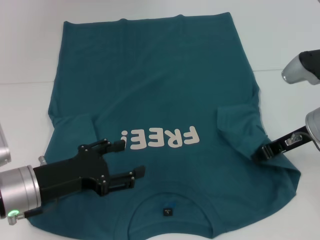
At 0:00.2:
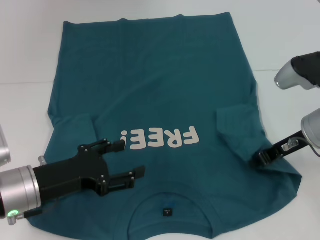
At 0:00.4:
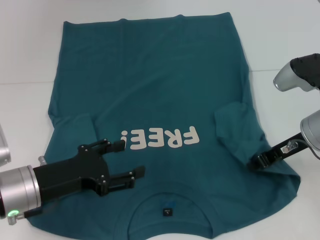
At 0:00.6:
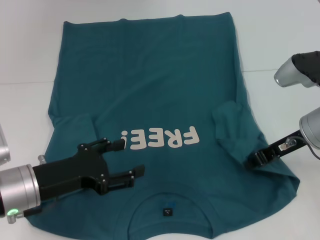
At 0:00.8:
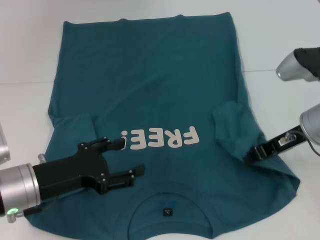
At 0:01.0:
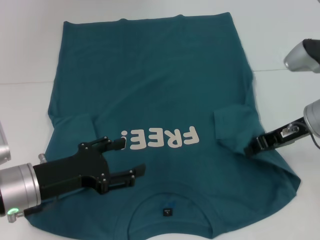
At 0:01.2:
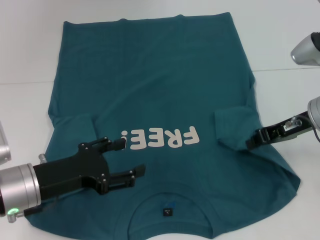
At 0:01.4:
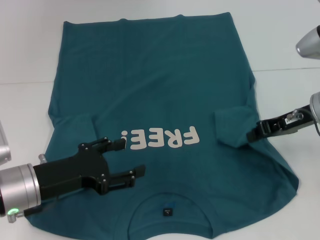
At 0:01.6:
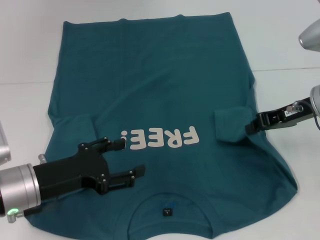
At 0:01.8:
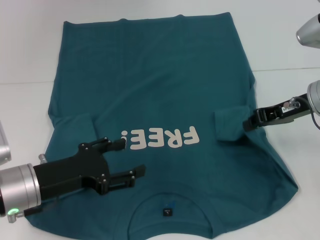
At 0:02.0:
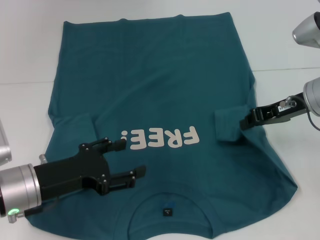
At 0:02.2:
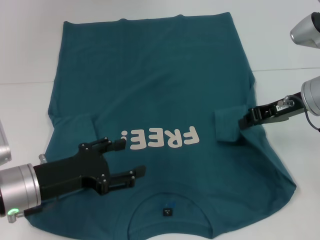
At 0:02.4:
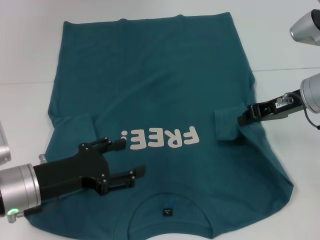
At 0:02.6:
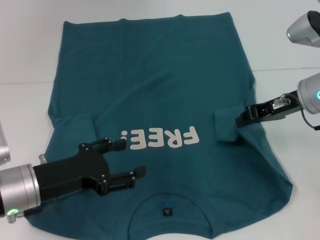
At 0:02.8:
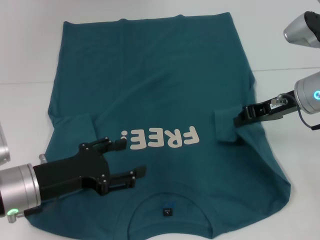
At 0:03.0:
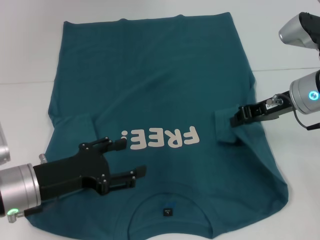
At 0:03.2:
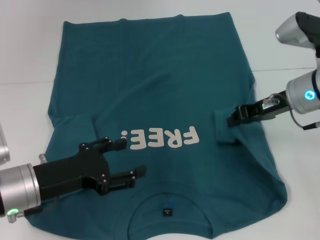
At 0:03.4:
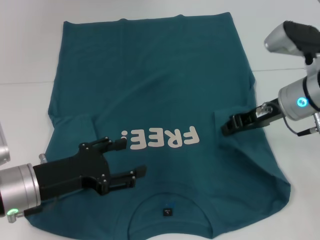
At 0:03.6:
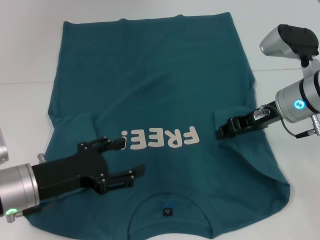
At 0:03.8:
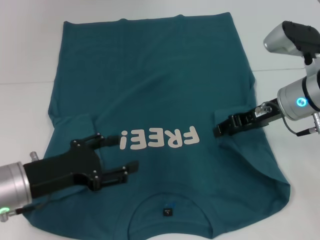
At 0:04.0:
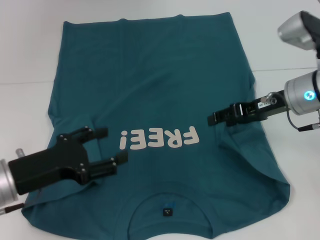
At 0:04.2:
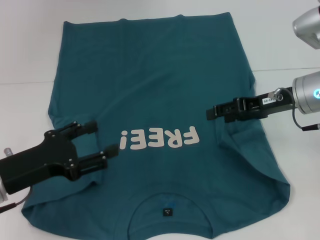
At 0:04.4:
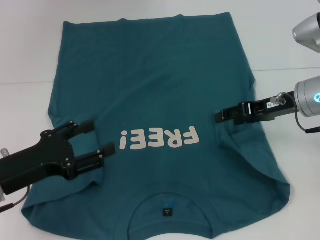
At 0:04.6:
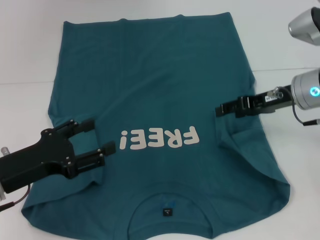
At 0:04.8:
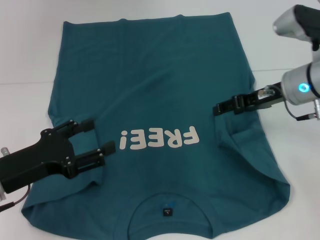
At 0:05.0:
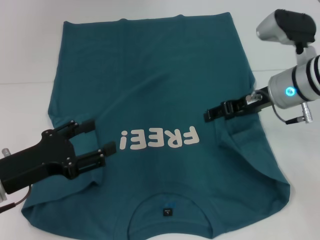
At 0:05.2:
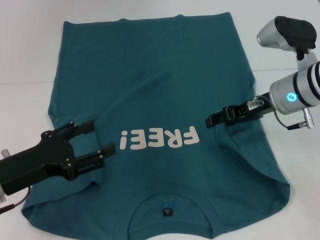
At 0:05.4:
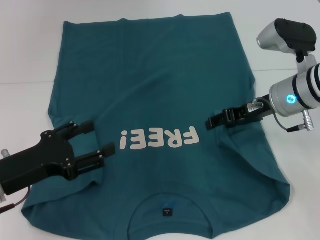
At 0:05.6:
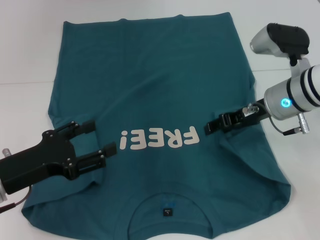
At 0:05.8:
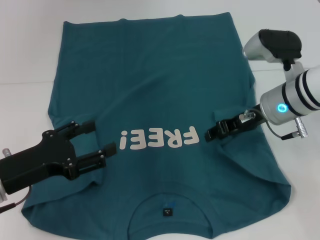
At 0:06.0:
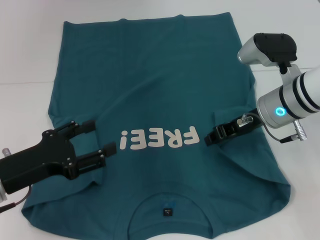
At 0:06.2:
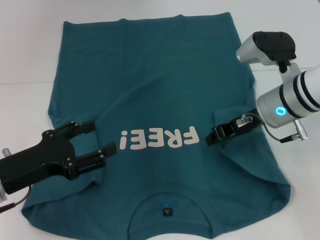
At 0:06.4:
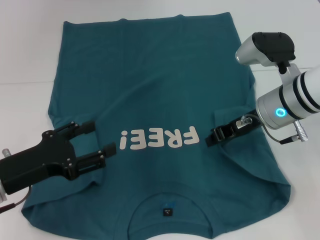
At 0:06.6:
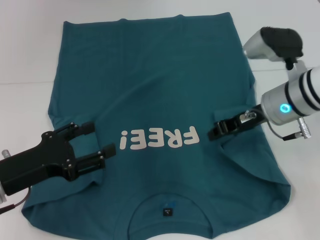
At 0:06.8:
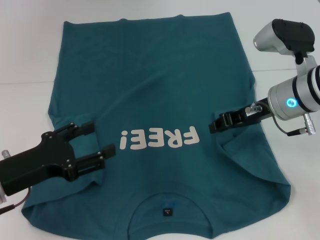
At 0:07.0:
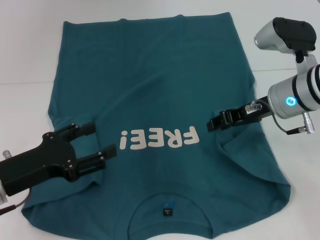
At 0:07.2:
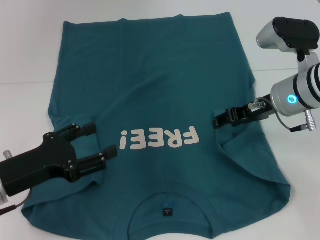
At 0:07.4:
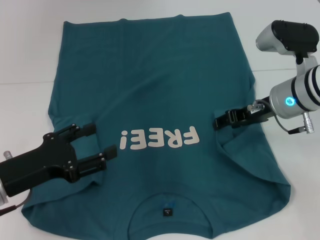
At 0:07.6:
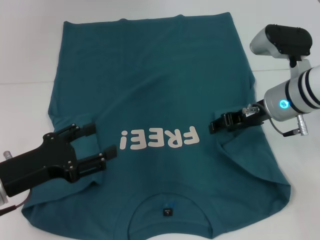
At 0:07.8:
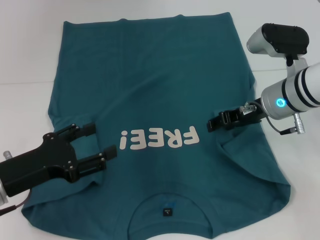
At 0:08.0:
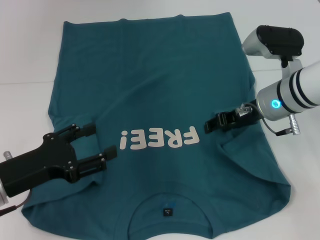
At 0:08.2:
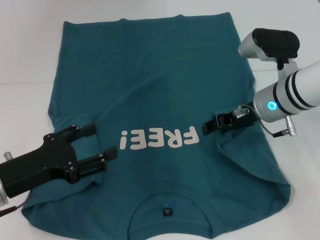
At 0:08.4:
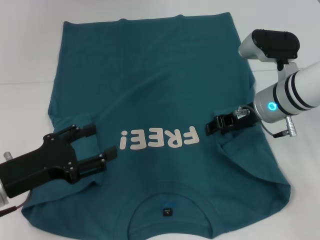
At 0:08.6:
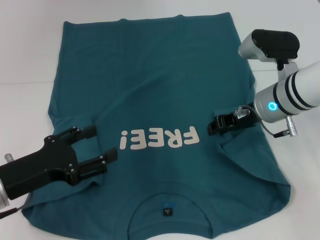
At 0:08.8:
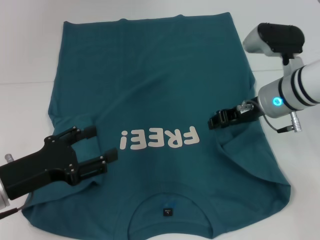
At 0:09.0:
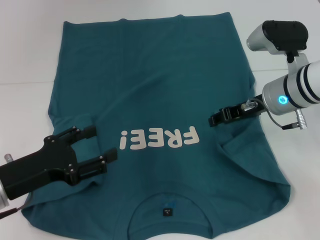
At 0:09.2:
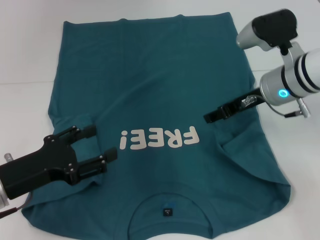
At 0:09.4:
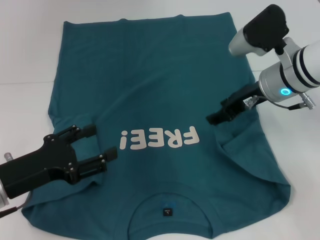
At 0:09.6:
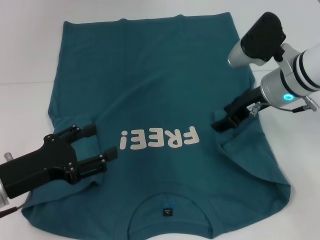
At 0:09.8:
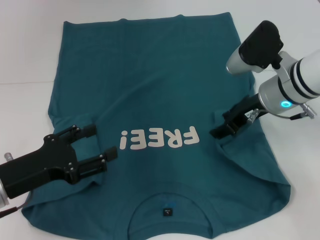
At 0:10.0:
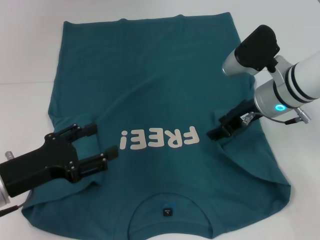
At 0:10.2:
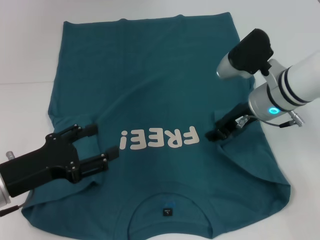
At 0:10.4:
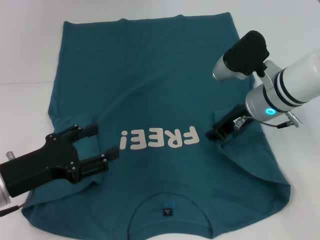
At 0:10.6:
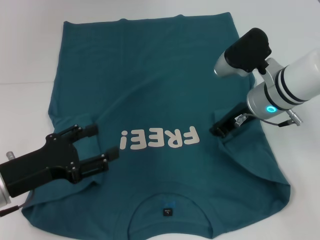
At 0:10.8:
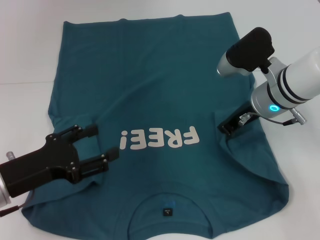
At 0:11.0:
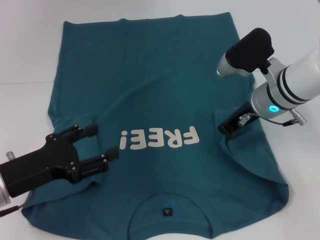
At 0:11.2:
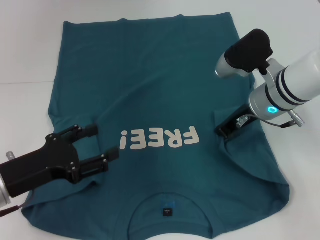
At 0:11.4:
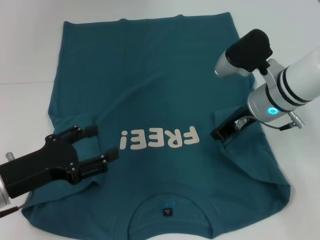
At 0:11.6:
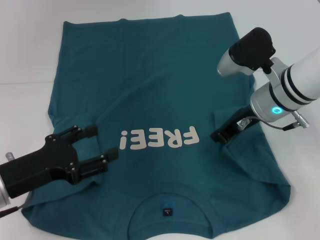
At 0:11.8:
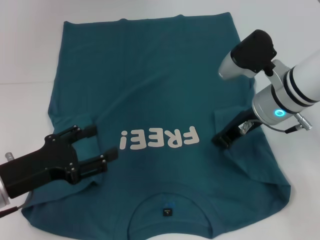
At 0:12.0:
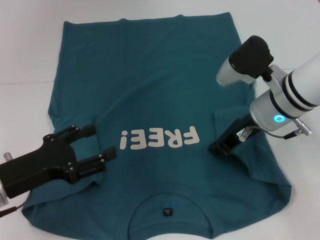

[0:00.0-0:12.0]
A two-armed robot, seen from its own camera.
0:00.0 to 0:03.0: The grippers stay close to where they were, moving slightly.
0:03.0 to 0:04.4: The right gripper opens up.
0:04.4 to 0:06.0: The right gripper is displaced to the left by about 5 cm, and closes its fingers.
0:06.0 to 0:07.6: The right gripper closes and opens again.
0:07.6 to 0:09.0: The grippers stay close to where they were, moving slightly.
0:10.4 to 0:12.0: The right gripper closes up.

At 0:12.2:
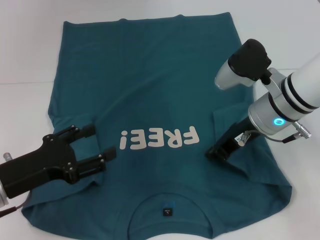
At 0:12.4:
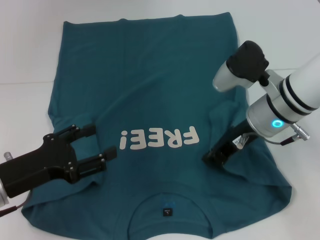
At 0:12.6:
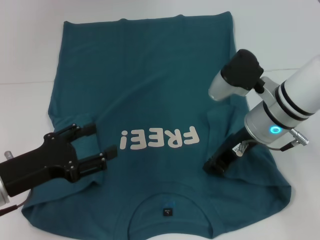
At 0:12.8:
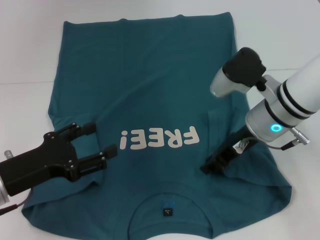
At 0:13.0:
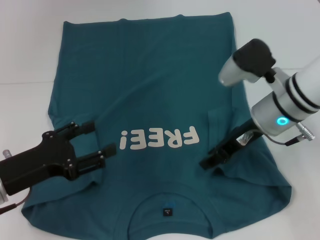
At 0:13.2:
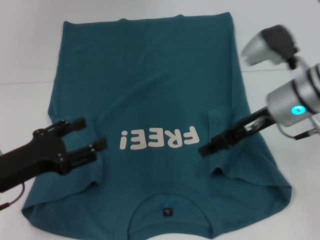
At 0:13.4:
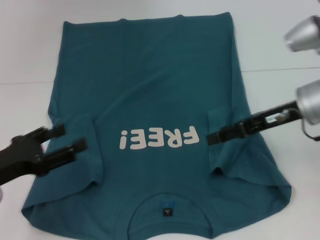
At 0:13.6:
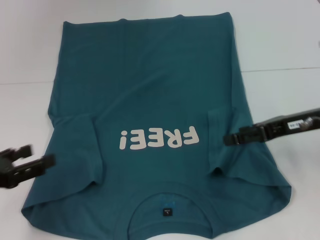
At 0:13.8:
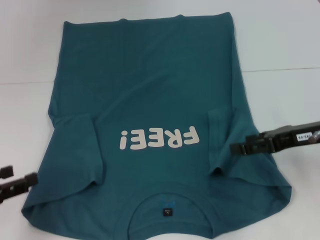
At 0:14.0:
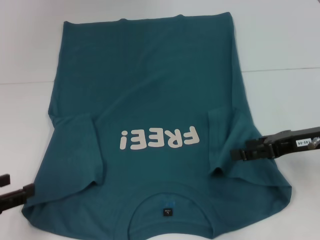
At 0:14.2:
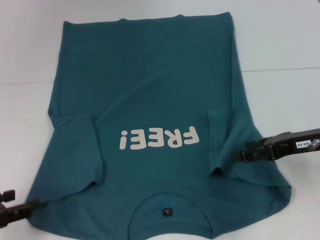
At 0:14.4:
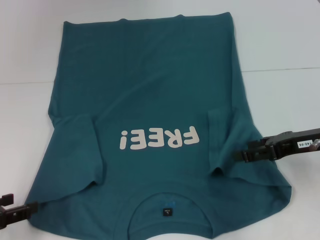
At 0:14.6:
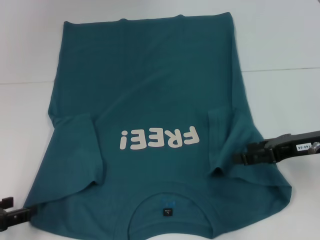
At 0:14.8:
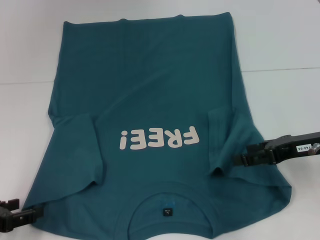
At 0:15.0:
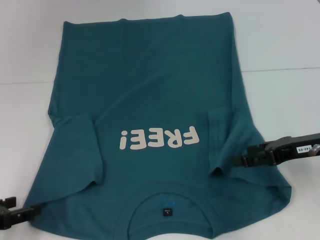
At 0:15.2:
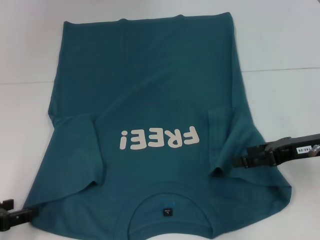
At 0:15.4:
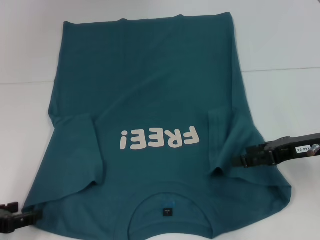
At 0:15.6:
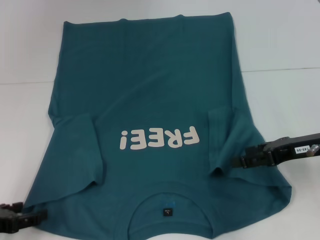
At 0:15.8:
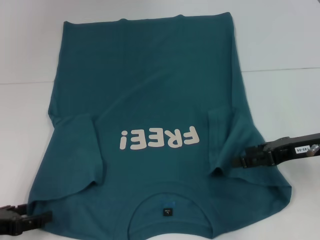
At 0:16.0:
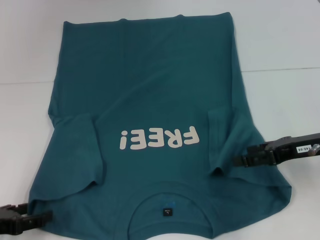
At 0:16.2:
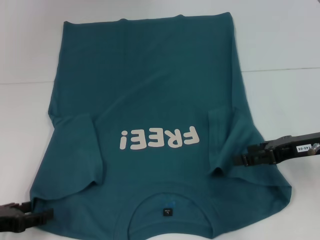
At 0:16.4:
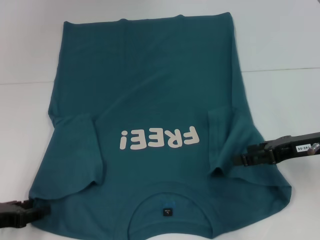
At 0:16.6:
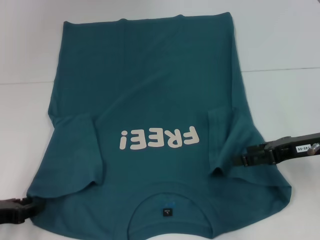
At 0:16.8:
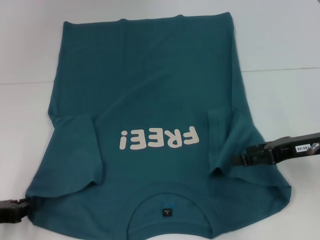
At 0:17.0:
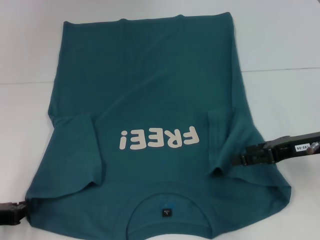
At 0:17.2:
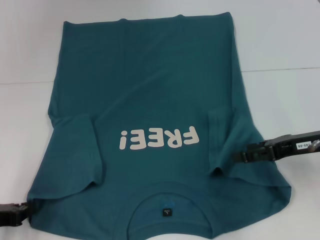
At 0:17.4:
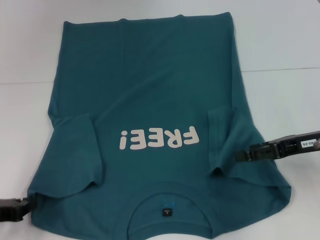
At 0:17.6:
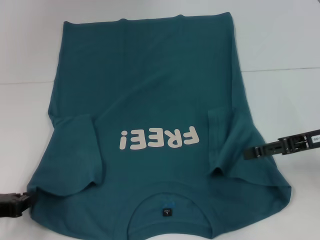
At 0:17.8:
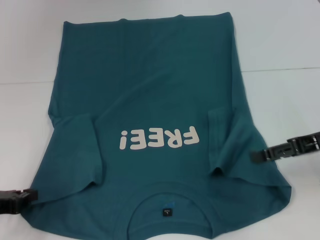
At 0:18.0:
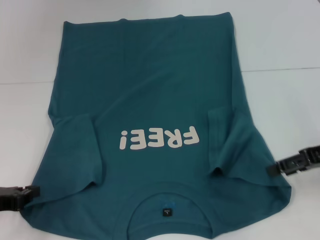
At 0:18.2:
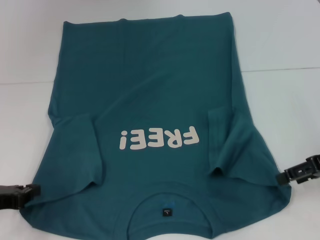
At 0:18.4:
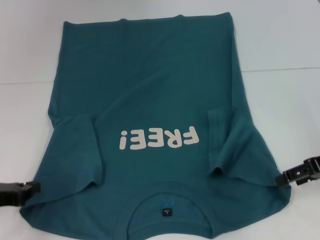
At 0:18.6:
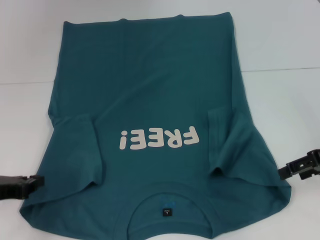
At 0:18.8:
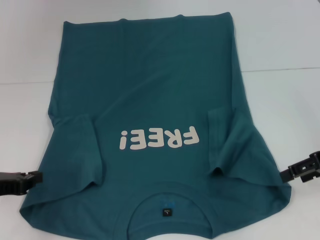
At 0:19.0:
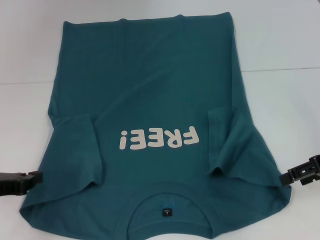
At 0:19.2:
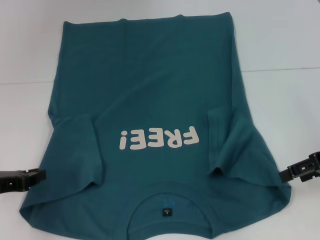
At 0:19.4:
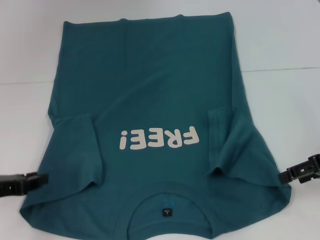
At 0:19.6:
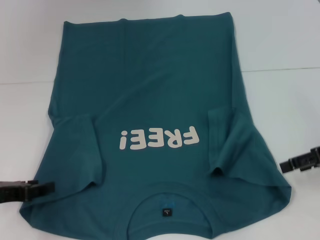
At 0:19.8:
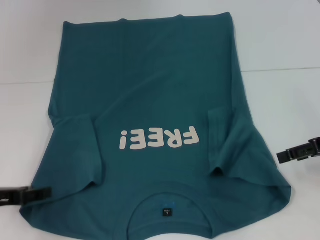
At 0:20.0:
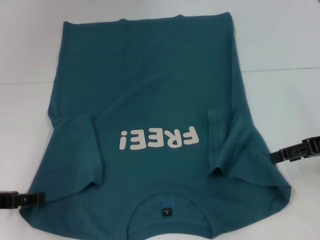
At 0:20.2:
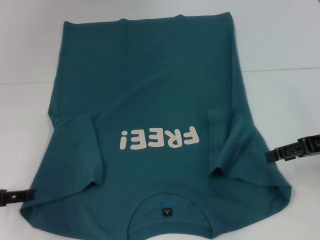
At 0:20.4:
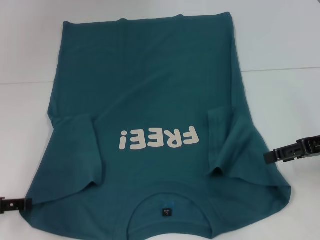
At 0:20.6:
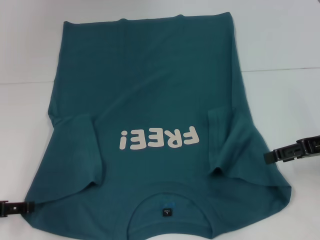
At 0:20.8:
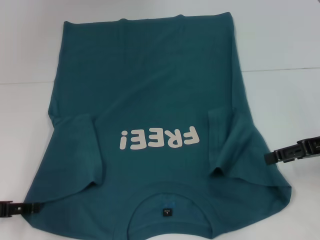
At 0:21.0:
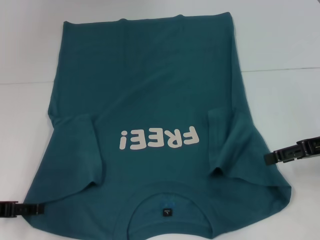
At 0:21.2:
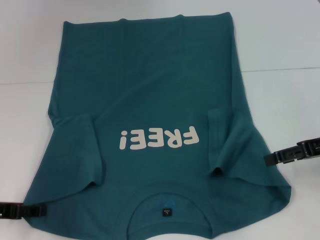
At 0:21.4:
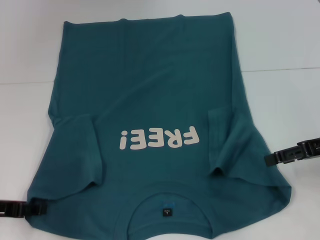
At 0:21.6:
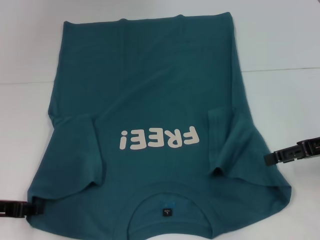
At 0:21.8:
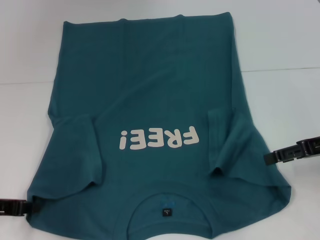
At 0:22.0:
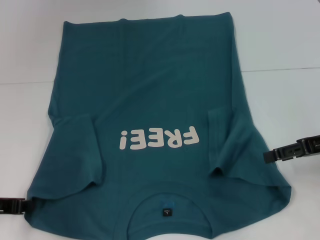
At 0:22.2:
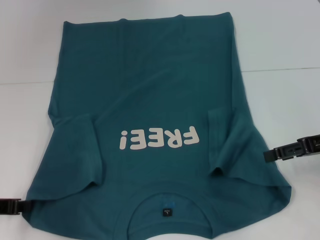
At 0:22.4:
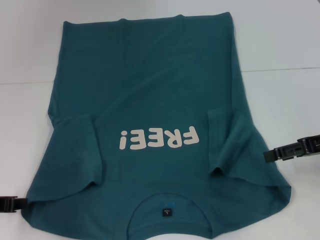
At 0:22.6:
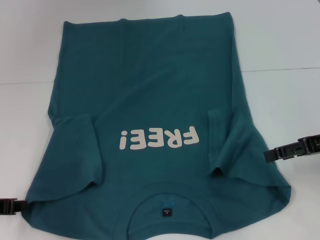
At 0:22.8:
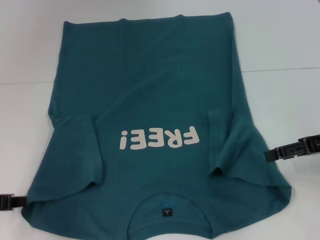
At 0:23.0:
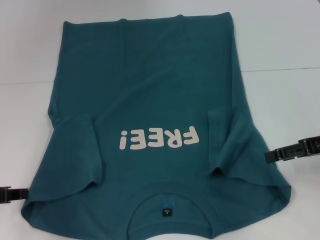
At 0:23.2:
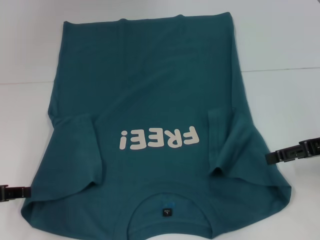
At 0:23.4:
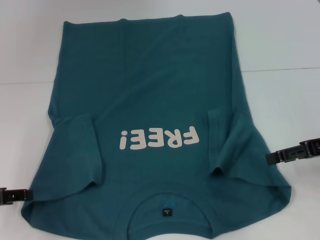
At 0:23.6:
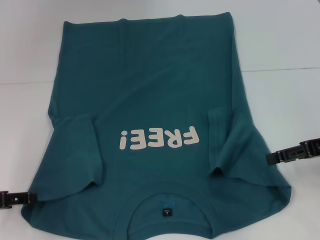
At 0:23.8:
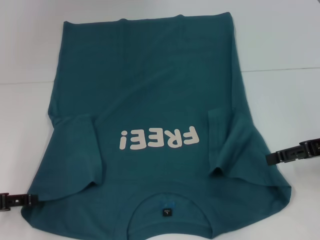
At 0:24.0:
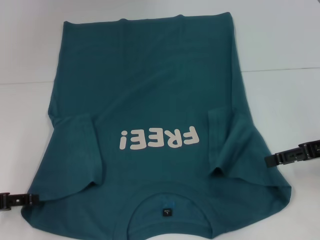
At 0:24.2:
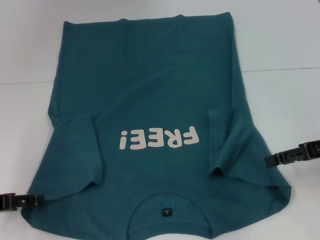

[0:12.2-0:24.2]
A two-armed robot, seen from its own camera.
0:12.2 to 0:13.8: The right gripper heads to the right and backward, covering some 10 cm, and opens. Meanwhile the left gripper travels to the left by roughly 10 cm.
0:13.8 to 0:15.2: There are only small adjustments of the grippers.
0:15.2 to 0:16.6: The left gripper closes its fingers.
0:16.6 to 0:18.2: The left gripper closes its fingers.
0:18.2 to 0:19.8: The left gripper opens up.
0:19.8 to 0:21.2: The left gripper opens up.
0:22.6 to 0:24.2: The left gripper opens.
